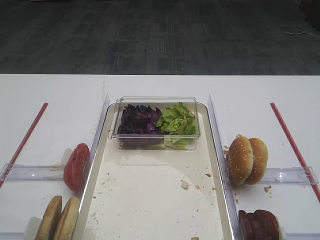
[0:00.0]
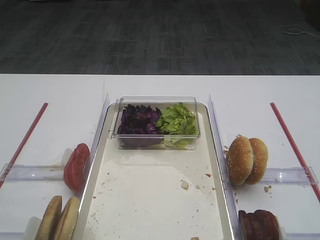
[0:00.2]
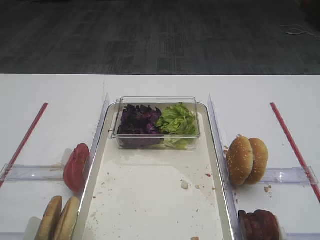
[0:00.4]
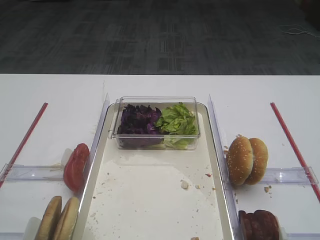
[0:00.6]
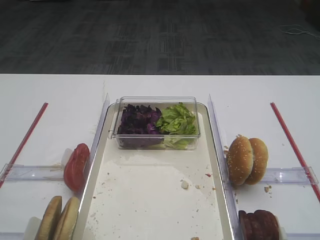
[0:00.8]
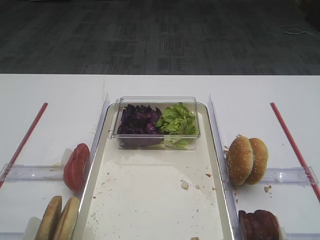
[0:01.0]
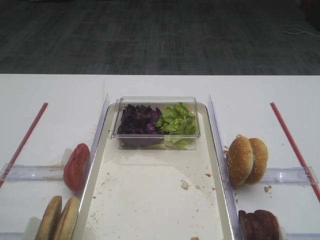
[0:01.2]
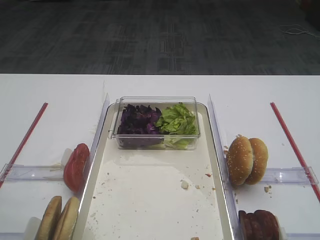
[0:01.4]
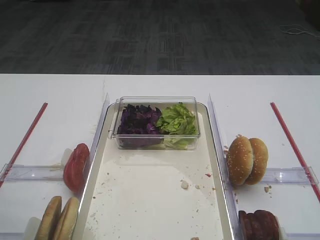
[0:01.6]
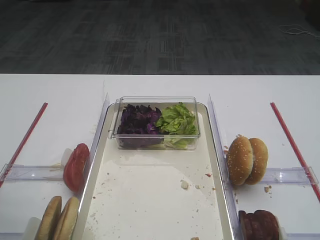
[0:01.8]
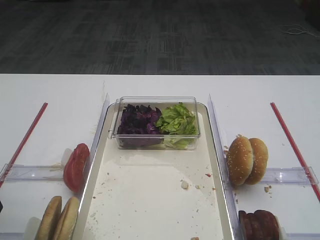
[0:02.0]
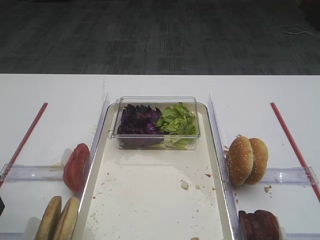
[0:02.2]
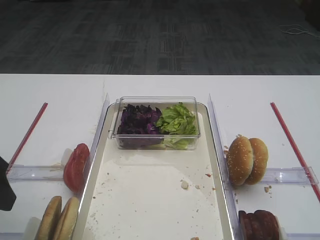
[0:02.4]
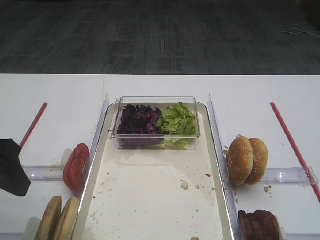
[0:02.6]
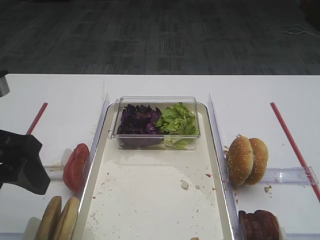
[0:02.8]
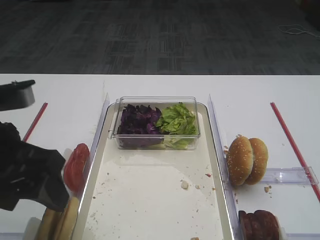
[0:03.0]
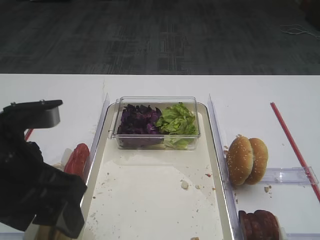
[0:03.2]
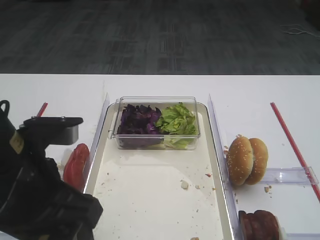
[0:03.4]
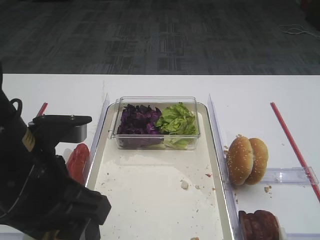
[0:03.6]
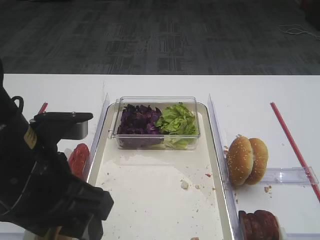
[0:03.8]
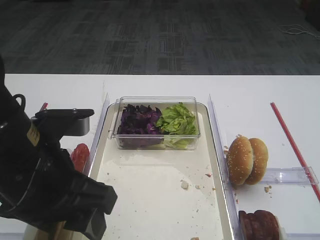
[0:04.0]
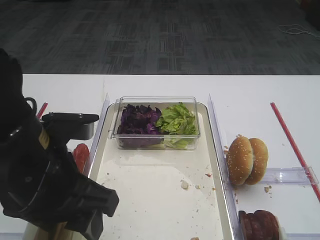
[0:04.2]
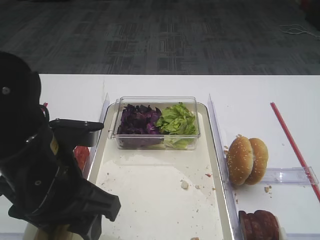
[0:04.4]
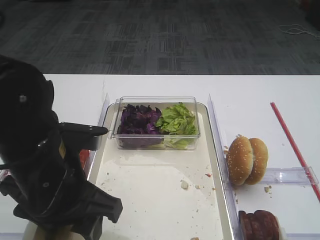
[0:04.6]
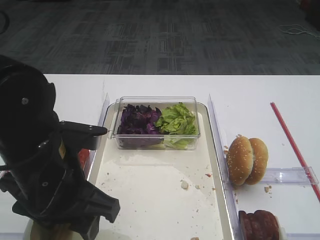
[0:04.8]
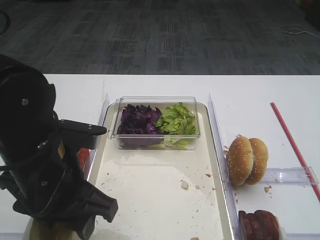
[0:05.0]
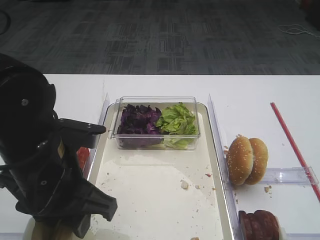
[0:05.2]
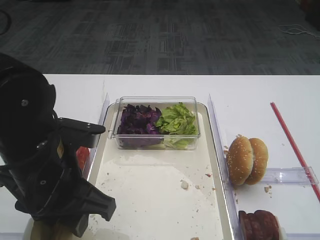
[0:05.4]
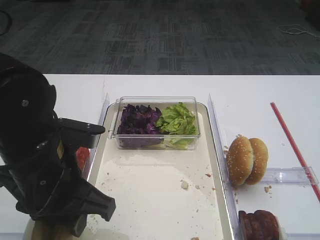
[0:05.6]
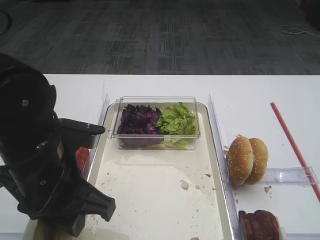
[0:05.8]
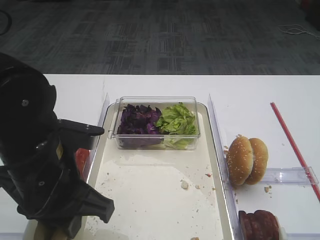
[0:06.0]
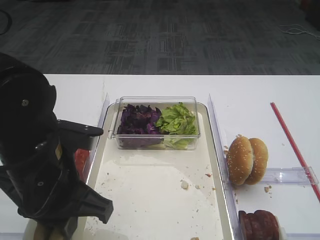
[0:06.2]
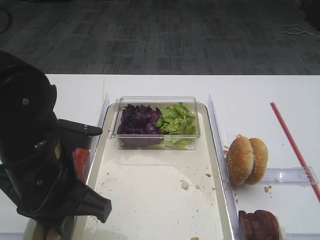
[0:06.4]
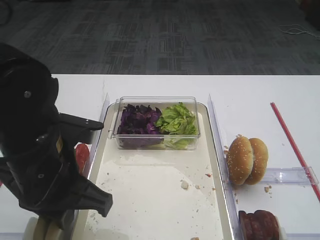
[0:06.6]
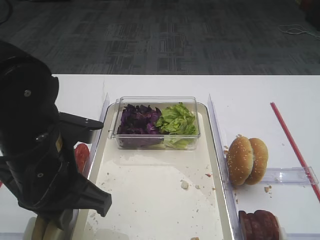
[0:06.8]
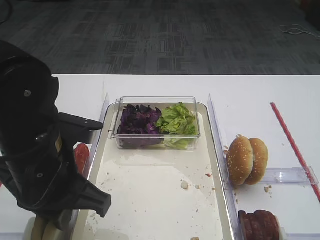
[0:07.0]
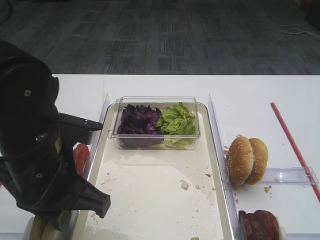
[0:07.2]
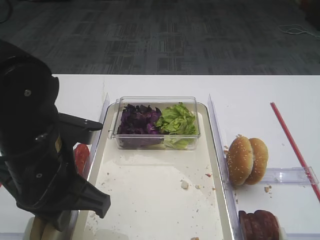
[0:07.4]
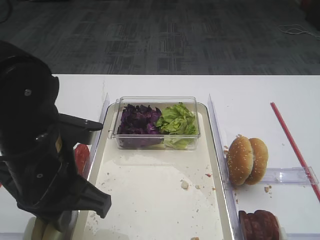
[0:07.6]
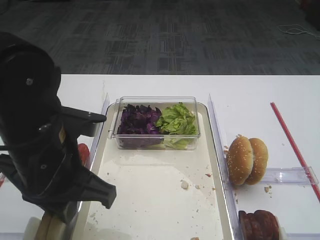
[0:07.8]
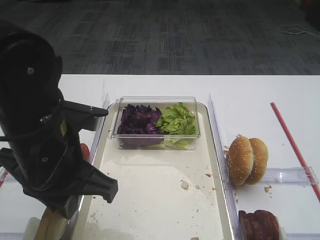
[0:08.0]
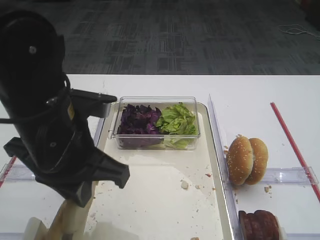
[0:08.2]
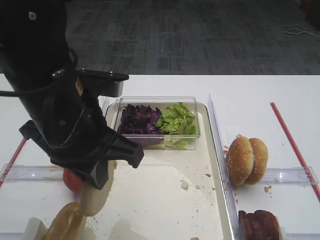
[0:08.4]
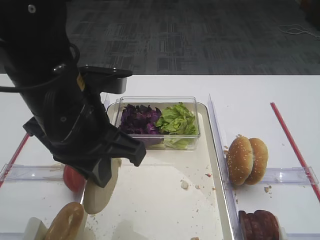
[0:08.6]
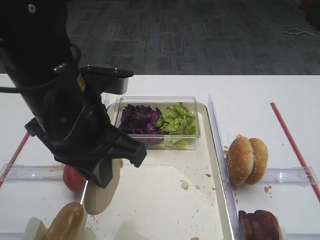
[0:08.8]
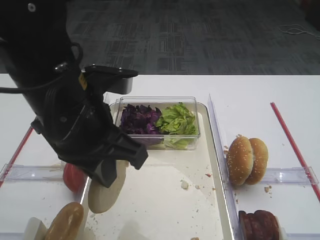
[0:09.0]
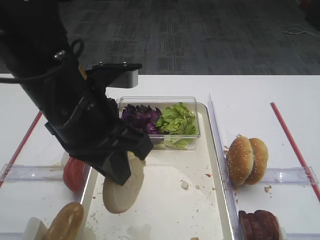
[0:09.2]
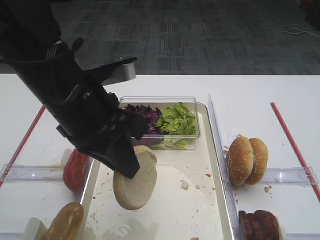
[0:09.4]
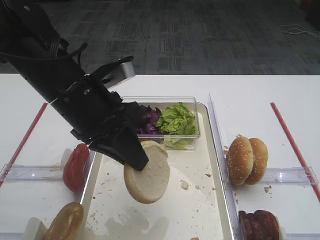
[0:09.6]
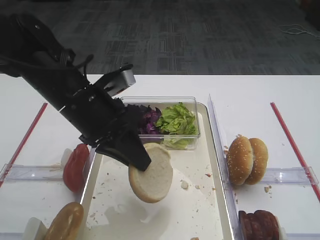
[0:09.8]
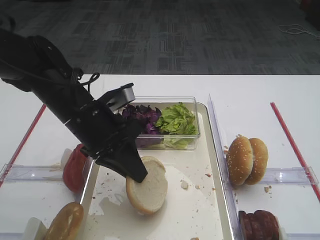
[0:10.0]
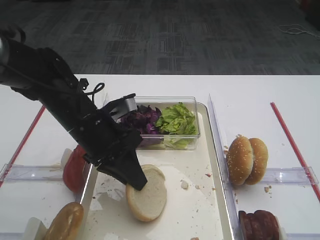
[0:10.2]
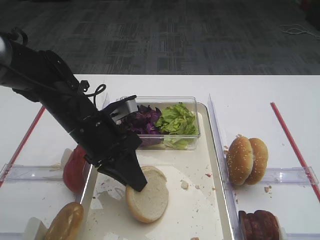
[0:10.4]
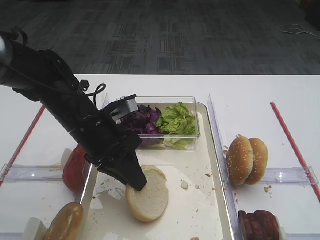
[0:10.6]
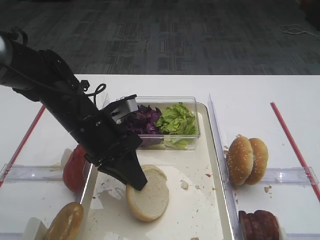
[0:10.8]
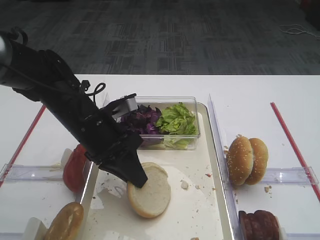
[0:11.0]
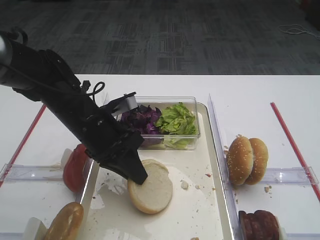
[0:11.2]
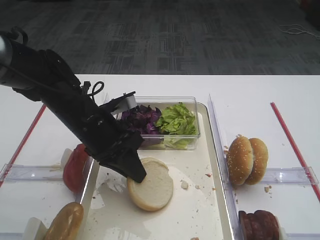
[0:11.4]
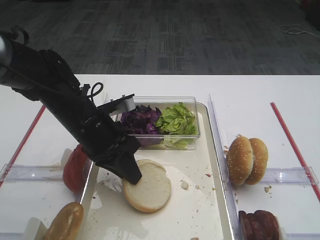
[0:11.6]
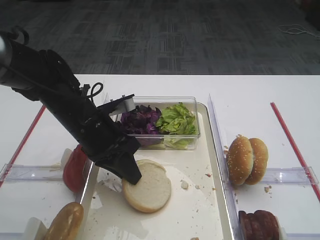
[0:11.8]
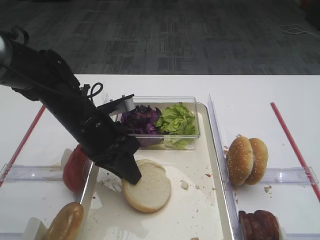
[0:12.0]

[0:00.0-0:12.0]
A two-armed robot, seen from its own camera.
Step, 0:00.0 to 0:08.4: Pick up the bread slice with the left gripper.
0:01.6 to 0:03.0: The left gripper is displaced to the right by some 10 cm.
0:03.0 to 0:04.4: The left gripper is displaced to the right by some 5 cm.
0:04.4 to 0:06.0: The left gripper closes its fingers.
0:06.0 to 0:07.6: Neither gripper changes place.
0:07.6 to 0:09.0: The left gripper is displaced upward by roughly 5 cm.
0:09.0 to 0:10.4: The left gripper travels downward and forward by some 15 cm.
0:10.4 to 0:12.0: The grippers stay close to where they were, moving slightly.

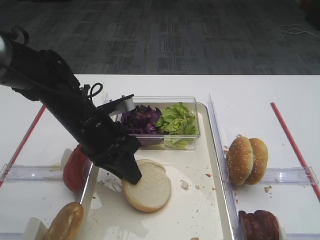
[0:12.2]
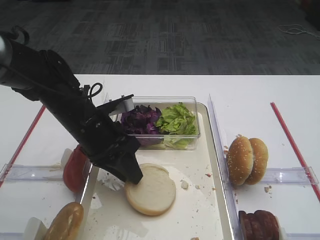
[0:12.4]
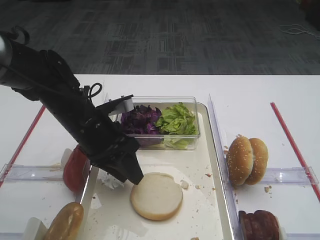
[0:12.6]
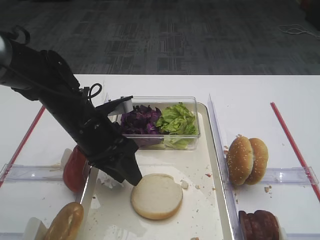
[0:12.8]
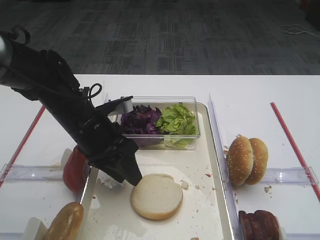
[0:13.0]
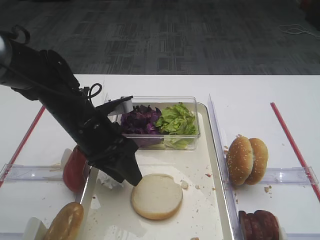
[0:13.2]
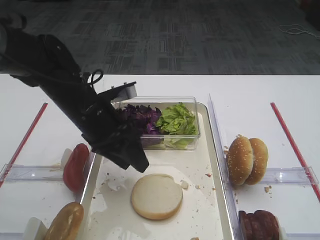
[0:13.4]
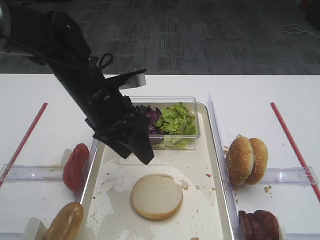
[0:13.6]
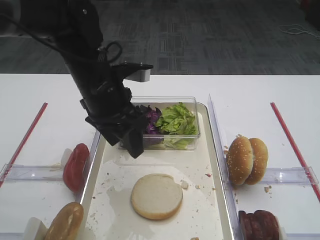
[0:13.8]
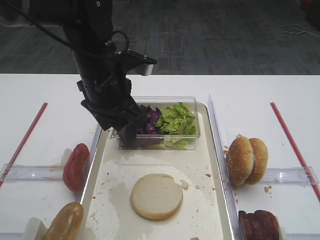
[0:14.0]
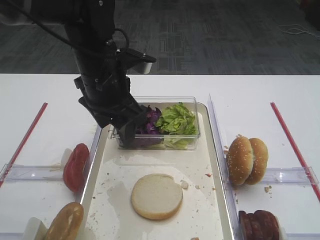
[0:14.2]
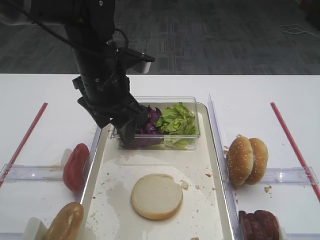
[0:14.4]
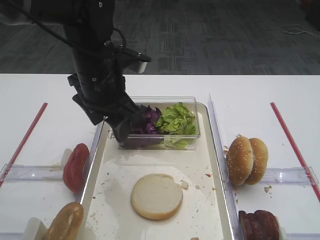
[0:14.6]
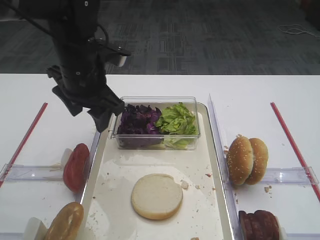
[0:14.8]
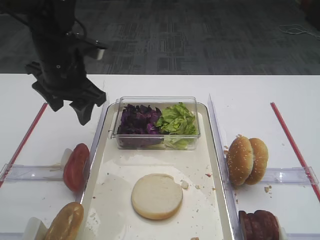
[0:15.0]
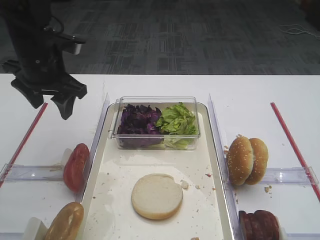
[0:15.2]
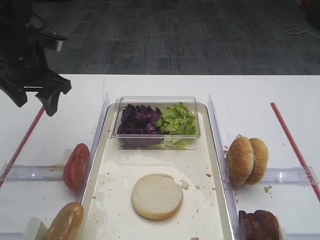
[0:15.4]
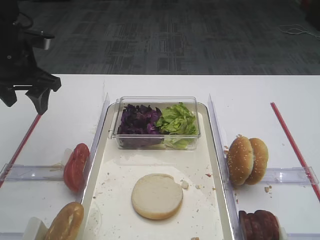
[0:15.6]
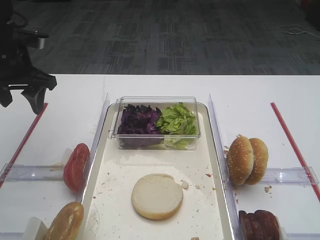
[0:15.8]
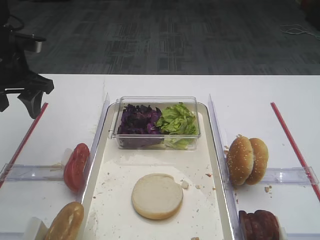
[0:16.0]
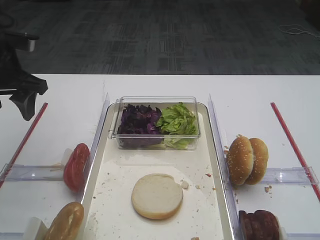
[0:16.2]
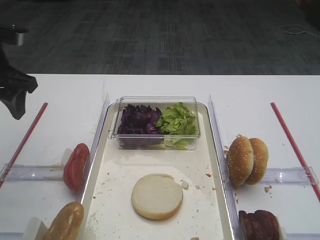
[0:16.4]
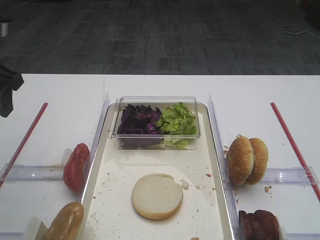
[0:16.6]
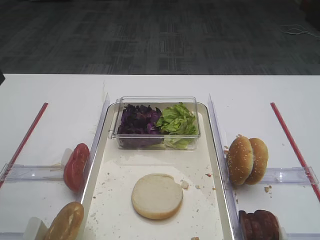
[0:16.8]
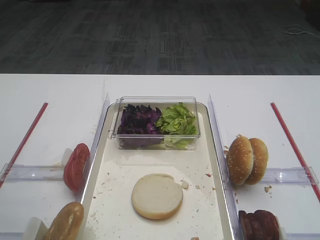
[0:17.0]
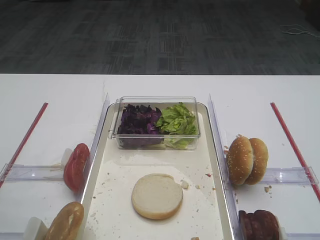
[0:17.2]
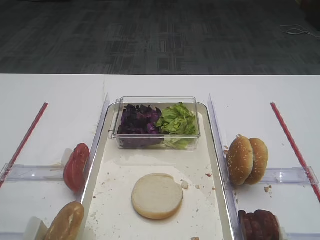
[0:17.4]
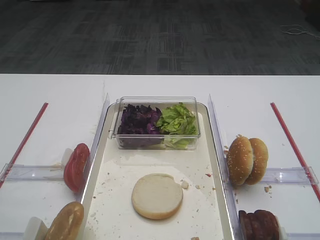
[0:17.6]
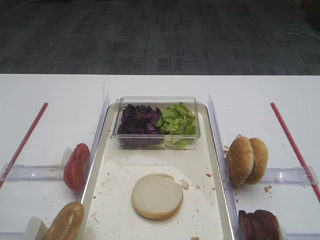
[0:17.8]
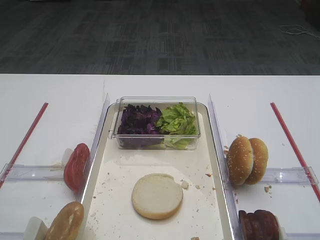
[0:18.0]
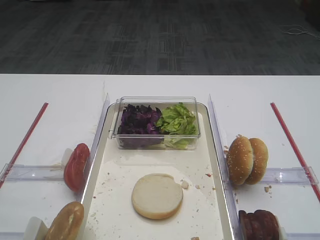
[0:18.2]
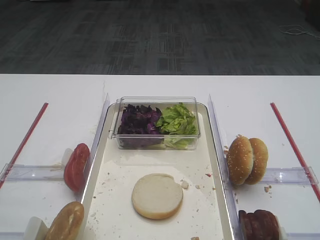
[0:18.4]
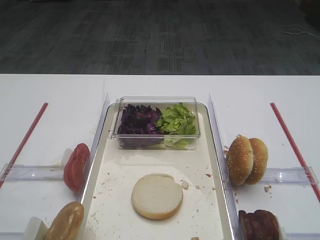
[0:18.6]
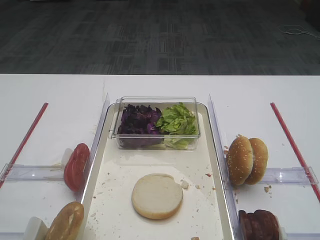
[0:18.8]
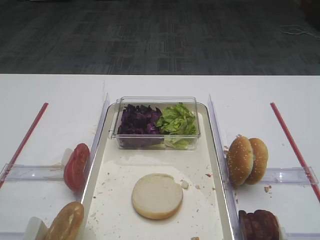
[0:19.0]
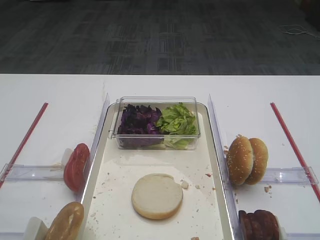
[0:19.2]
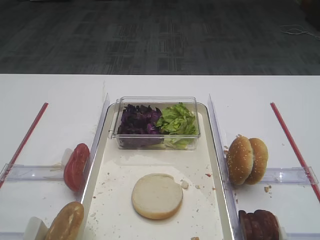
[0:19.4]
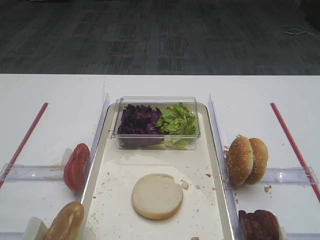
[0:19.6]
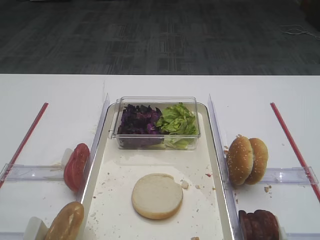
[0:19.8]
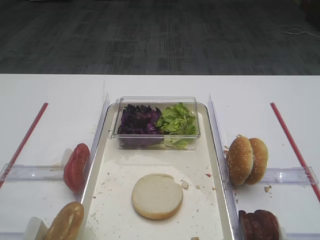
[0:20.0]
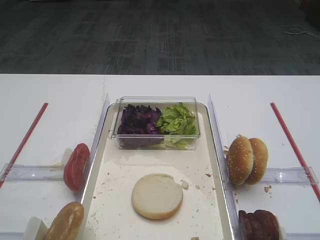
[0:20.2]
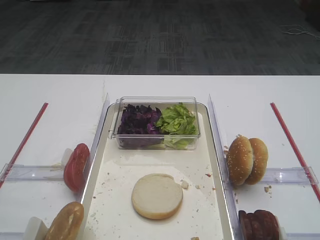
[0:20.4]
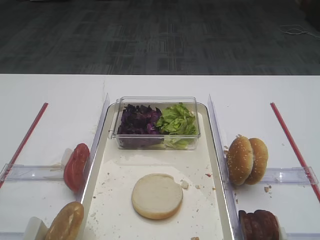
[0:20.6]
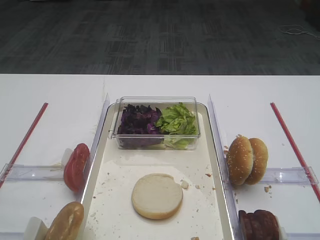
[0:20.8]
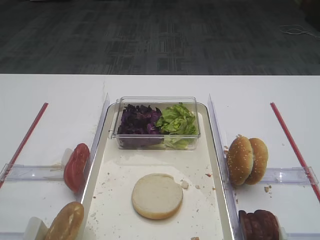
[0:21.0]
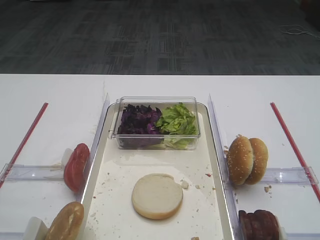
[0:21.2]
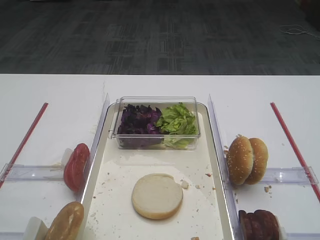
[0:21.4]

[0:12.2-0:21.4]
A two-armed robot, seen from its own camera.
0:12.2 to 0:13.8: The left gripper travels upward by some 10 cm, and opens up.
0:13.8 to 0:15.2: The left gripper moves to the left and forward, about 10 cm.
0:15.2 to 0:16.8: The left gripper shifts roughly 15 cm backward, upward and to the left.
0:18.4 to 0:21.4: The two grippers keep their place.

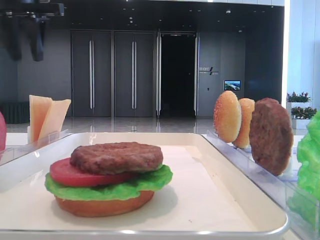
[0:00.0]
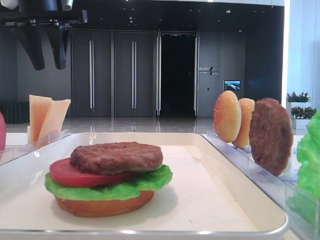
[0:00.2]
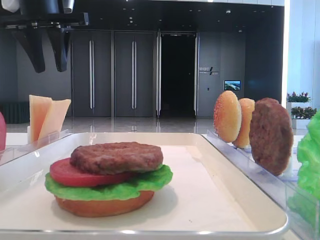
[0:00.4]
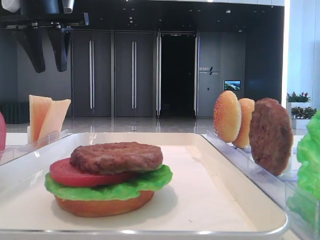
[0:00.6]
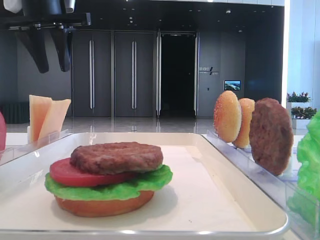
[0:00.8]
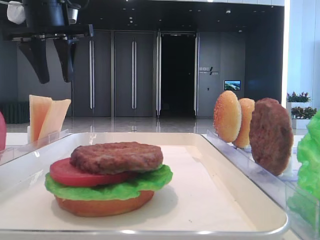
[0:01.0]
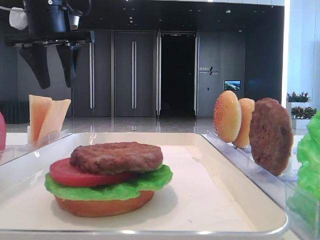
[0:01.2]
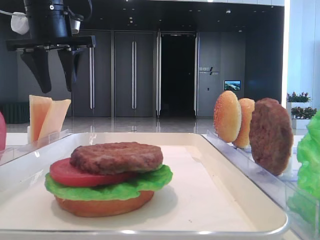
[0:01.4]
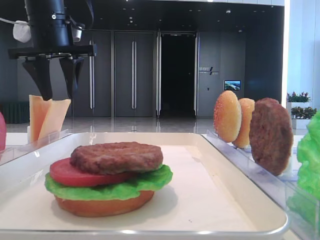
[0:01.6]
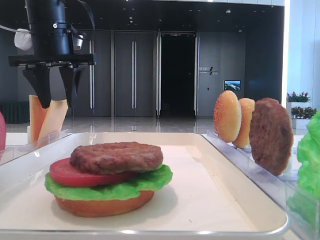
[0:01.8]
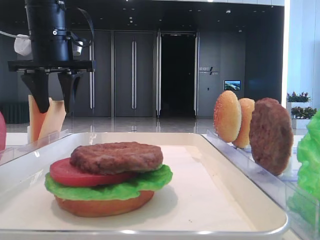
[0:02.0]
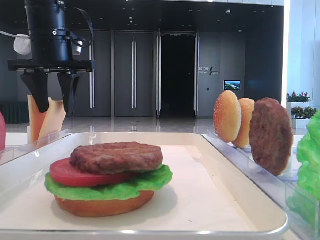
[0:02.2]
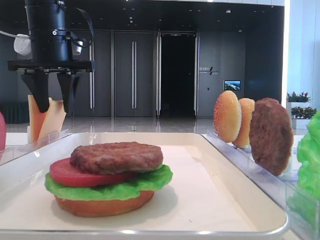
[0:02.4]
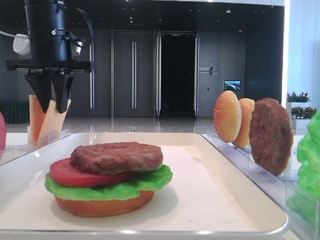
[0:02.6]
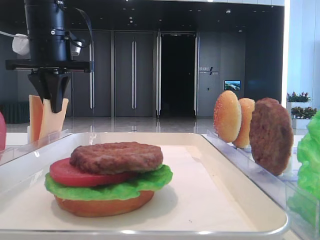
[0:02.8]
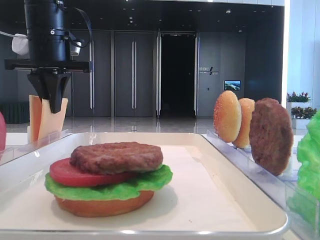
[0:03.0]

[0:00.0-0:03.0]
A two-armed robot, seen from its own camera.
Step, 0:00.0 to 0:03.0: Pick up the cheese slice with the left hand.
0:00.0 to 0:01.6: The left gripper shifts roughly 10 cm downward and to the right.
0:01.6 to 0:03.0: The left gripper closes.
